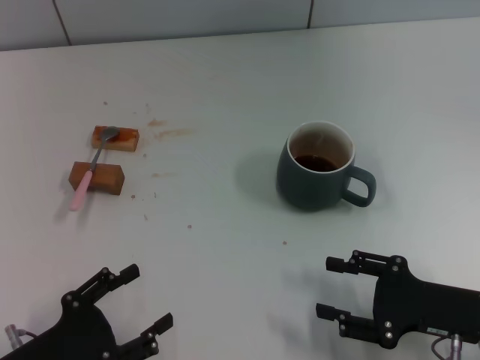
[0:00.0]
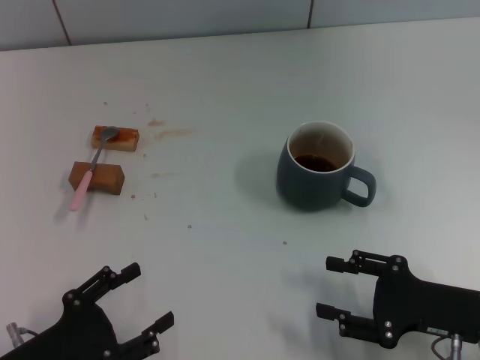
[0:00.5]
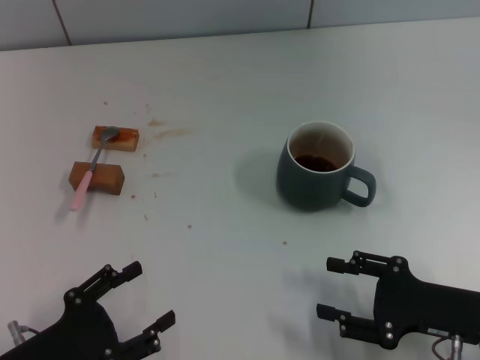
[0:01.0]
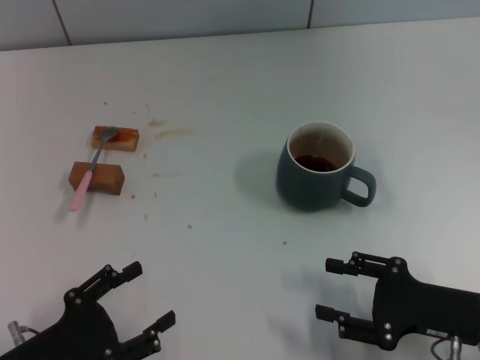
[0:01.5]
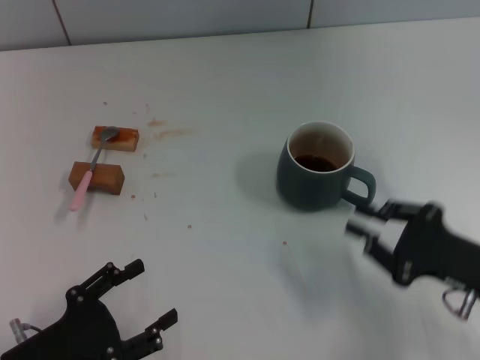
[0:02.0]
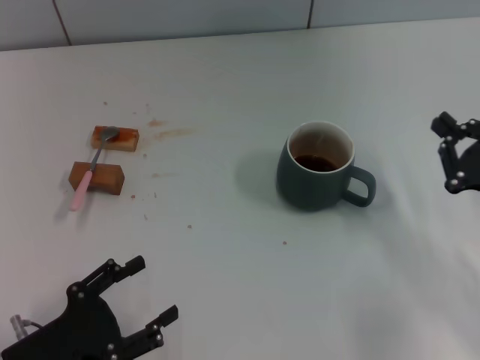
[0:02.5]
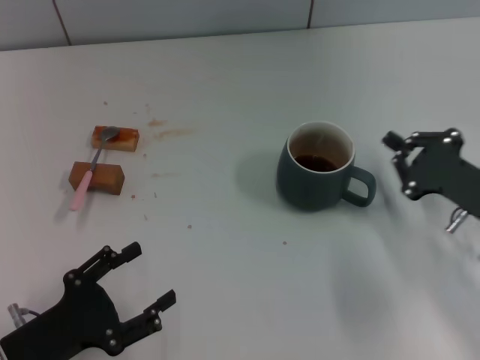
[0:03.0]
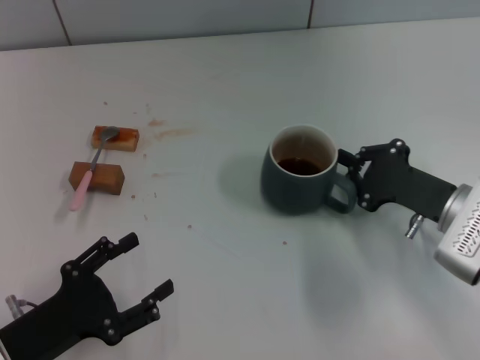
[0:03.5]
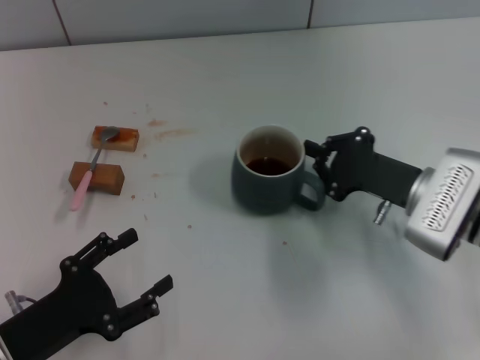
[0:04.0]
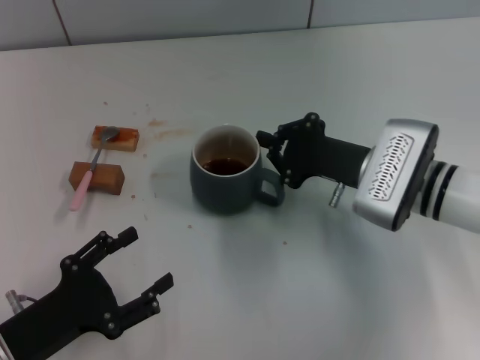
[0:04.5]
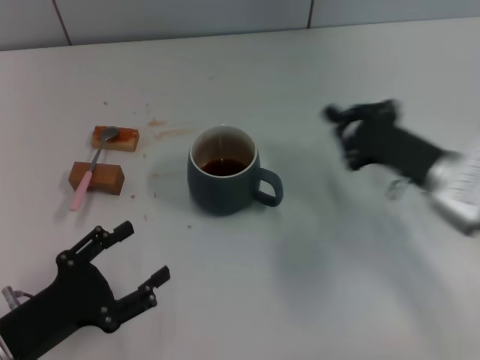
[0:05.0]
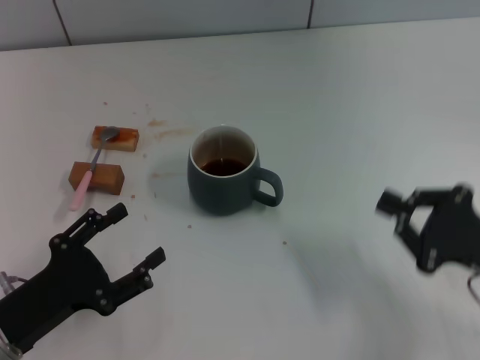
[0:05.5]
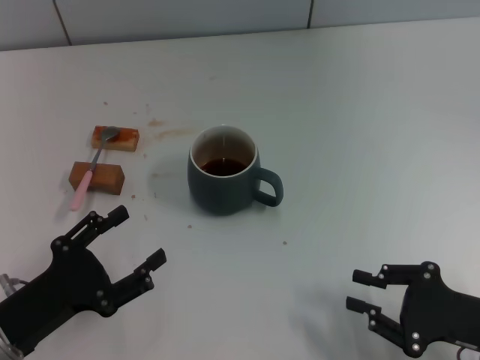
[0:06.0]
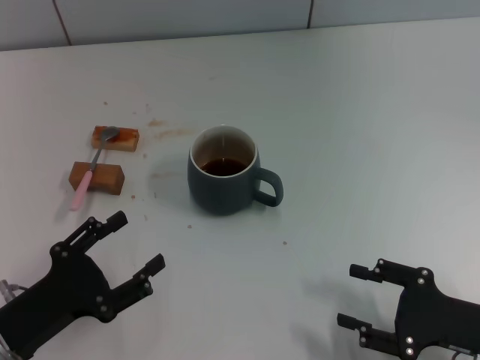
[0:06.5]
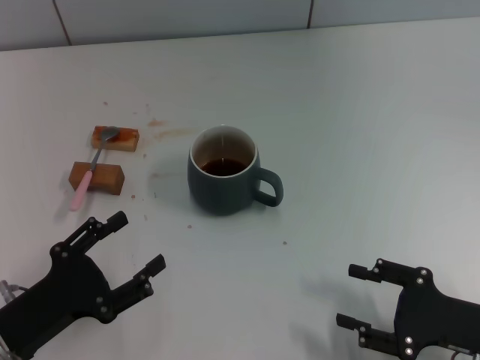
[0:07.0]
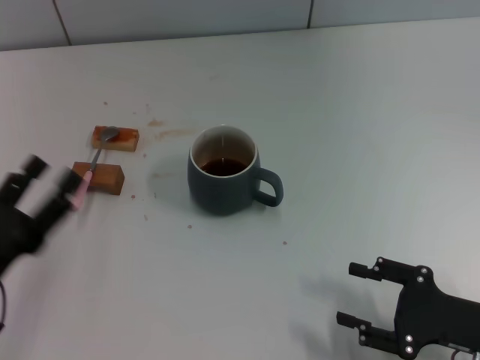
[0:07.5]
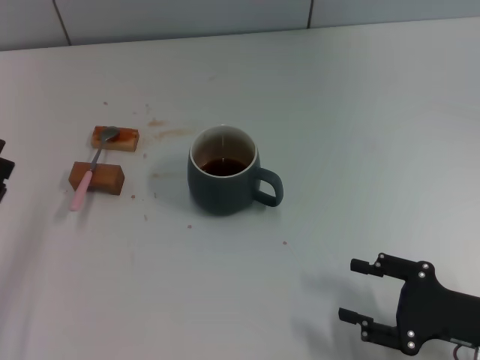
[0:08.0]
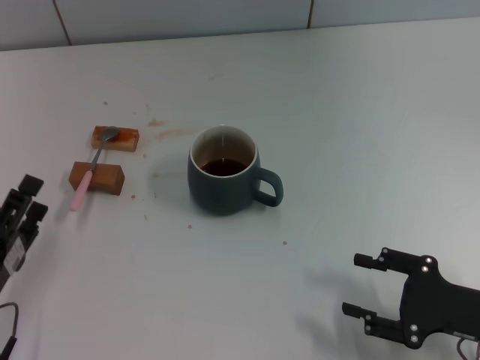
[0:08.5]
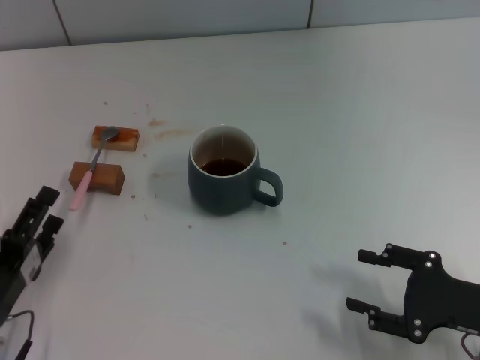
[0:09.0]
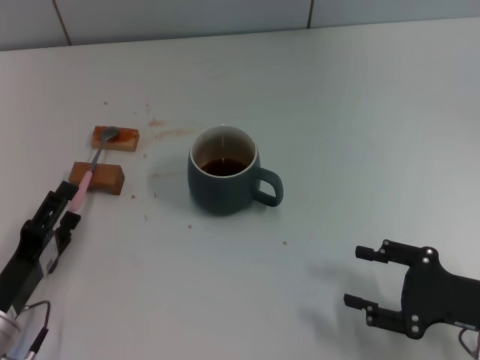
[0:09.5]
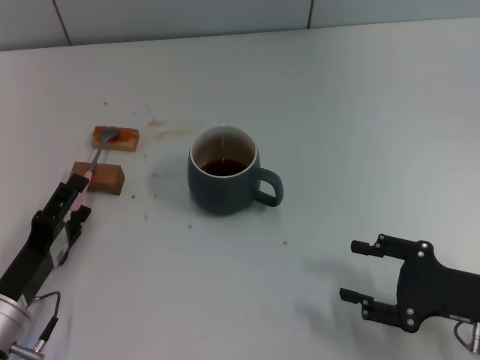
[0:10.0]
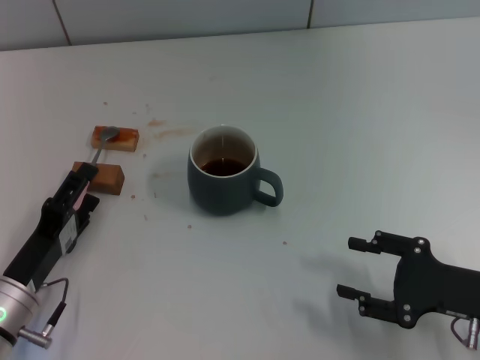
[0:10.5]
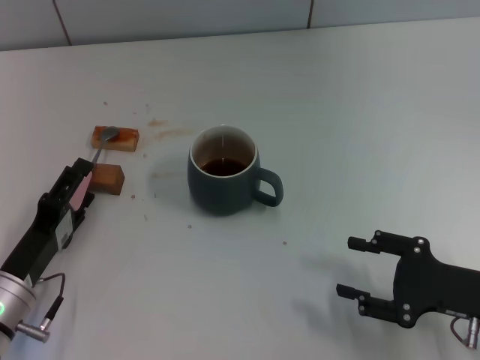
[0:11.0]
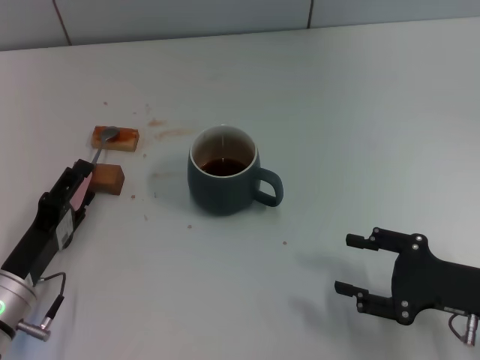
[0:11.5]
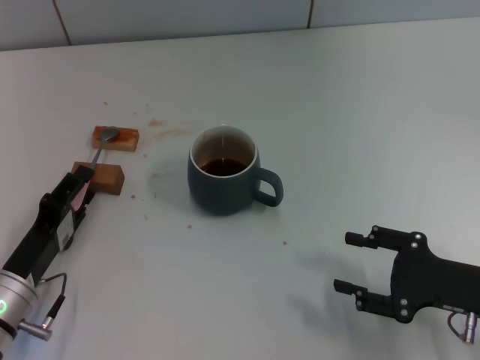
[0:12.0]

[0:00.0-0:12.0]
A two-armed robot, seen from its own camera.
Task of the whole recording: Move the grey cup to the center, lift the pink spoon, stir it three times in the cup, and put the spoon into the cup.
Step, 0:00.0 to 0:05.0: Move the cup with coffee to the center of view with the right gripper.
0:00.0 to 0:02.0: The grippers make only small movements.
0:02.0 to 0:04.0: The right gripper is displaced forward and to the left by about 10 cm, and closes.
0:04.0 to 0:06.0: The right gripper travels backward and to the right by about 15 cm.
0:06.0 to 0:08.0: The right gripper opens up.
0:08.0 to 0:10.0: The left gripper ends up approximately 5 cm from where it was.
0:10.0 to 0:12.0: There are only small adjustments of the grippers.

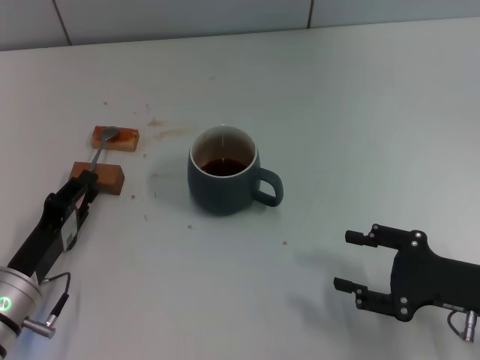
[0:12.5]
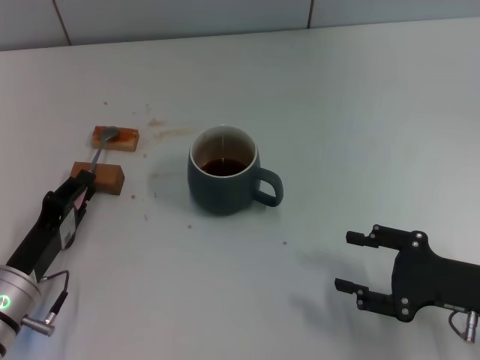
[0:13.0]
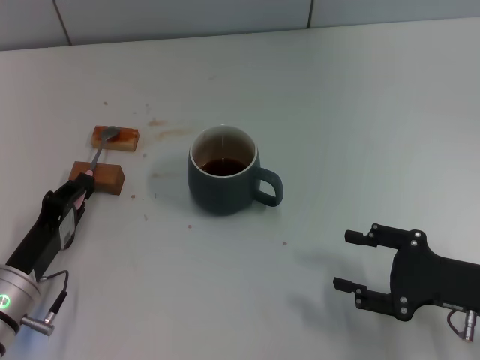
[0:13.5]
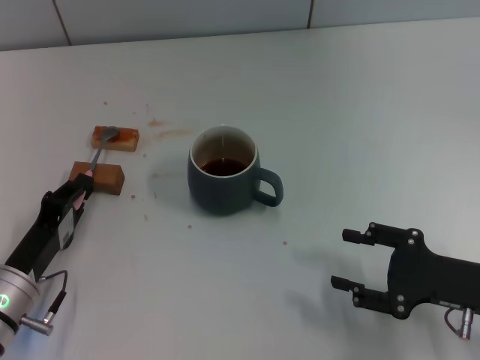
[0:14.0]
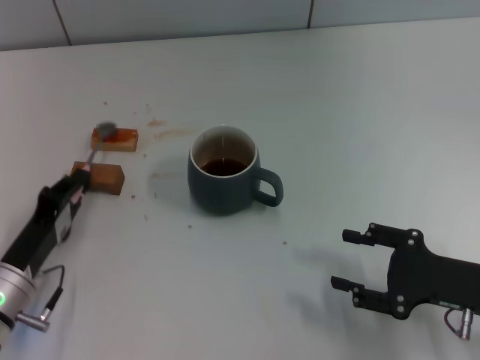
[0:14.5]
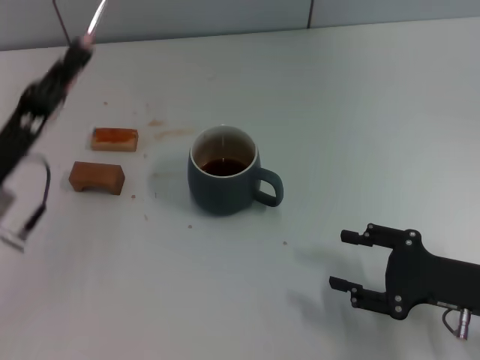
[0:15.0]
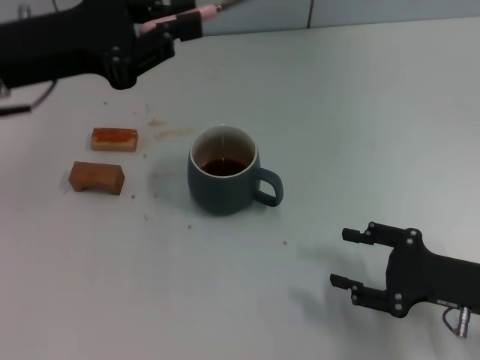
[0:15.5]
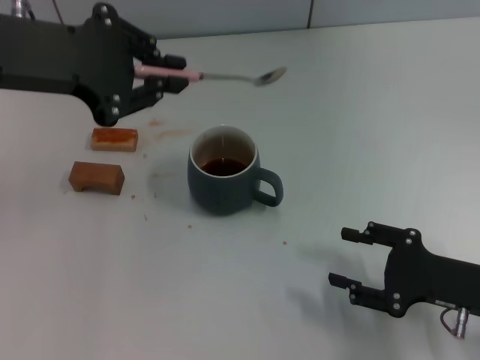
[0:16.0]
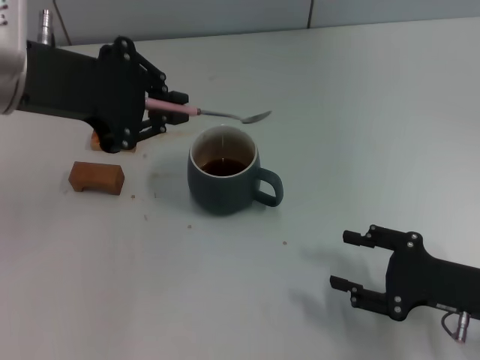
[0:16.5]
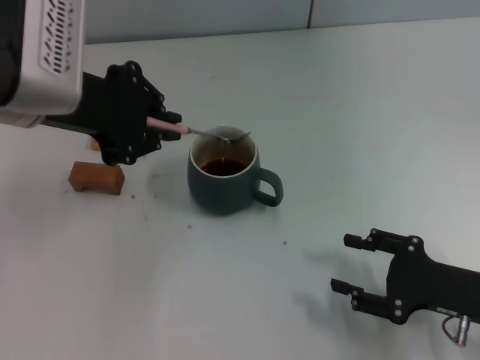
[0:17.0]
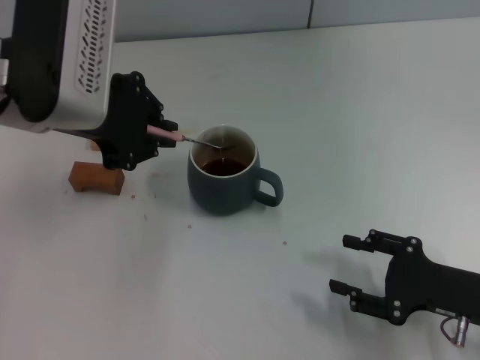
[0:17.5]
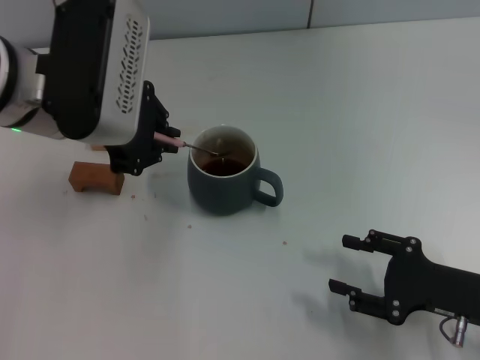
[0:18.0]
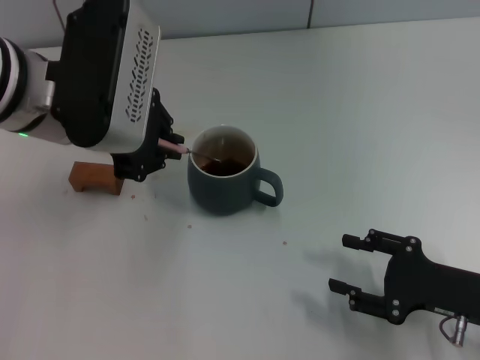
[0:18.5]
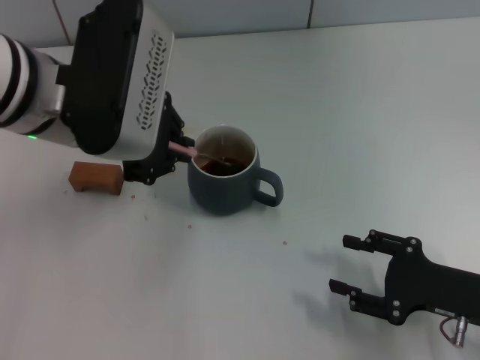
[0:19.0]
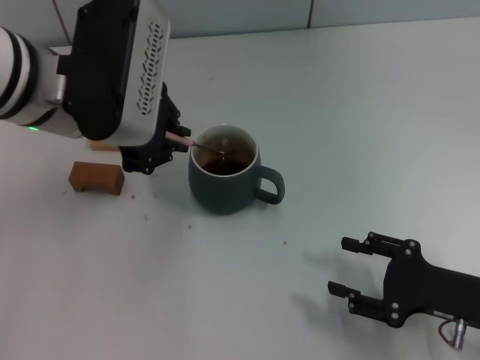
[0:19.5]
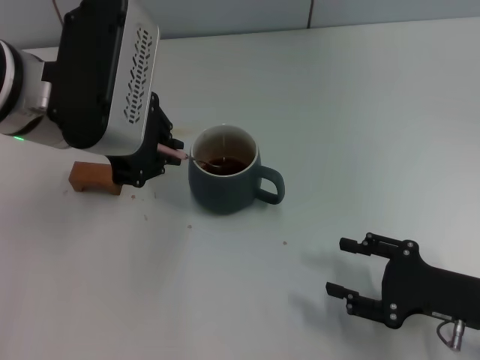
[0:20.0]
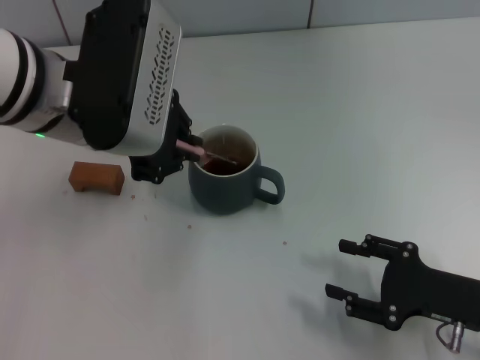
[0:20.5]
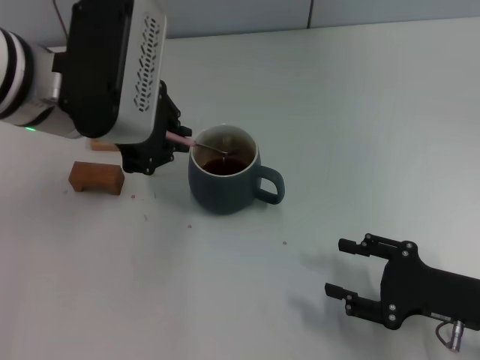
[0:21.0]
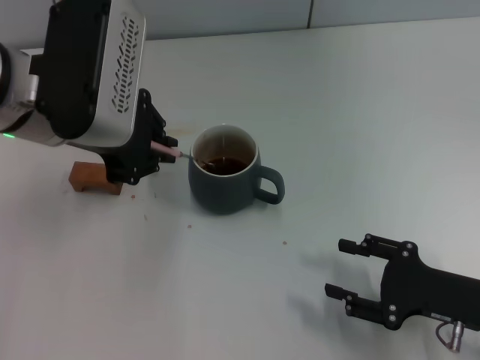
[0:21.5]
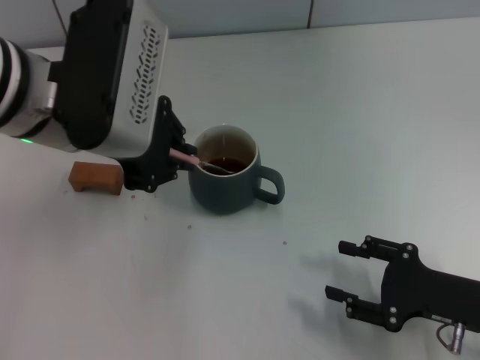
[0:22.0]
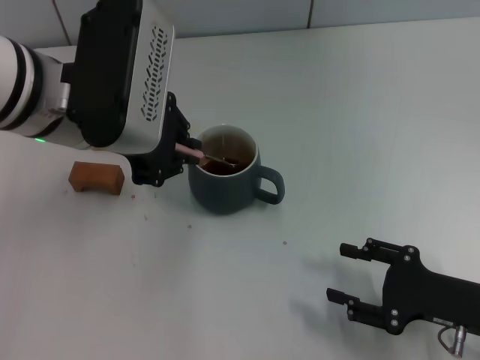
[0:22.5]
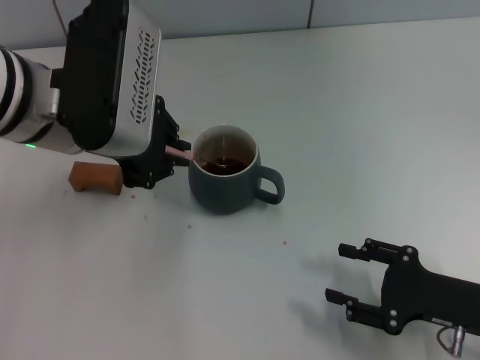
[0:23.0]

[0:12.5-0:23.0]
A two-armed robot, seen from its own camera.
Task of the whole recording: Move the grey cup to the center, lift the pink spoon, stir it three times in the cup, and put the spoon into the cup.
Step, 0:12.5 to 0:14.5: Pick up the spoon with the left gripper.
0:12.5 to 0:14.5: Neither gripper changes place.
0:14.5 to 0:16.5: The left gripper moves upward, about 25 cm.
0:16.5 to 0:19.0: The left gripper is displaced to the right by about 5 cm.
0:19.0 to 0:21.0: Both grippers stay put.
0:21.0 to 0:23.0: The grippers make only small movements.

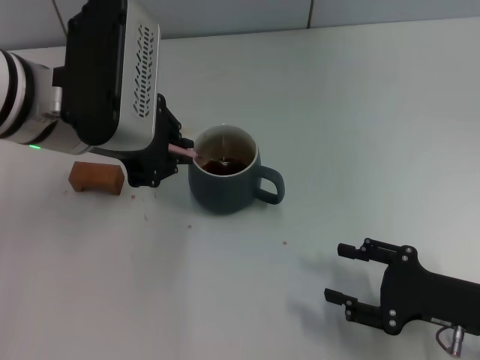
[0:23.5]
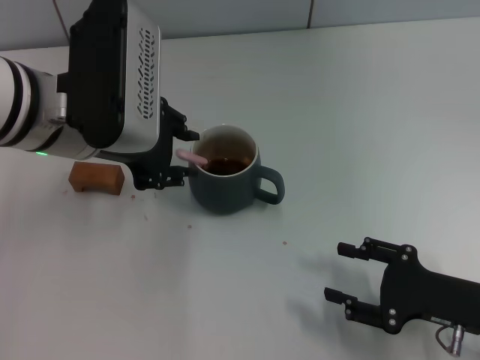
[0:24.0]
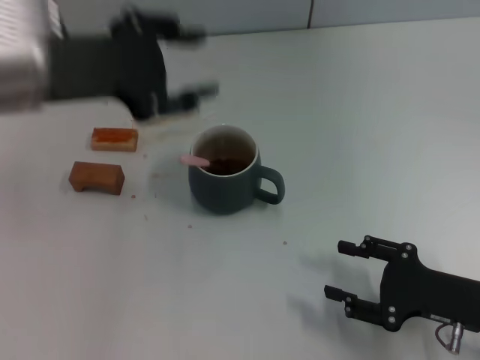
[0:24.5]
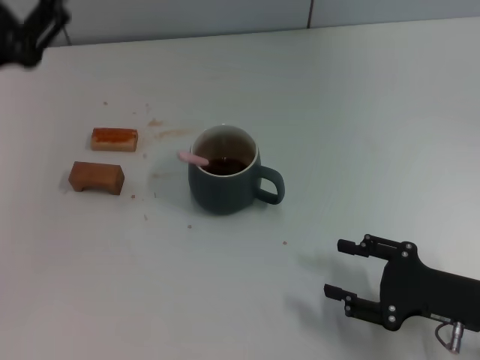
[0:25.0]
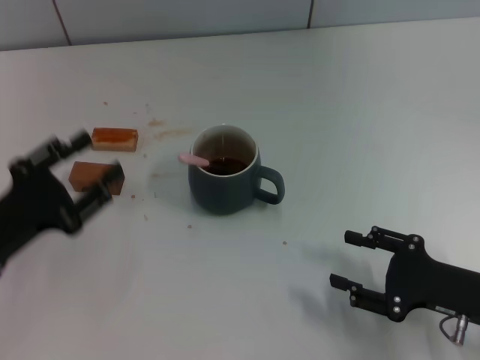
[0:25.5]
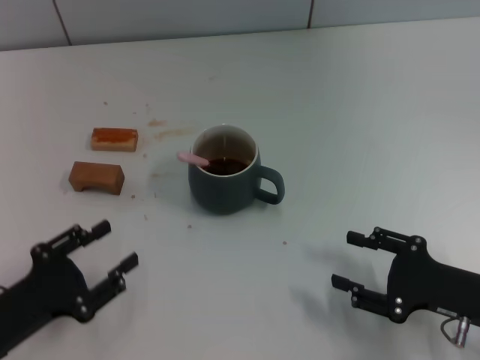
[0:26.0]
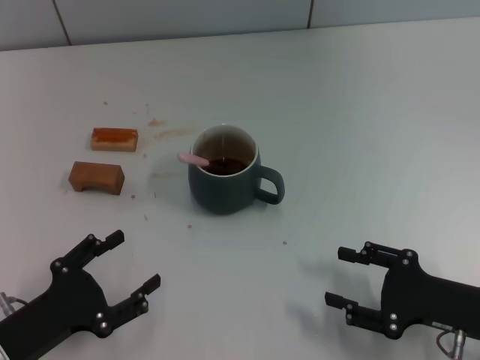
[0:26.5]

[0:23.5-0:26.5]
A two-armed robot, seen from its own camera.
Task of the whole recording: Move the grey cup to the center, lift the pink spoon, stir it three times in the cup, and put the spoon into the cup.
0:23.5 to 0:25.0: The left gripper is displaced to the left and downward by roughly 15 cm, and opens its fingers.
0:25.0 to 0:26.5: The left gripper heads downward and backward, covering about 20 cm.
